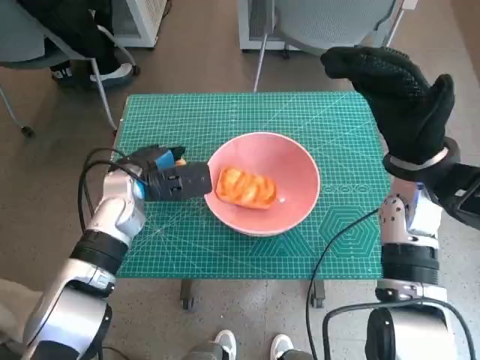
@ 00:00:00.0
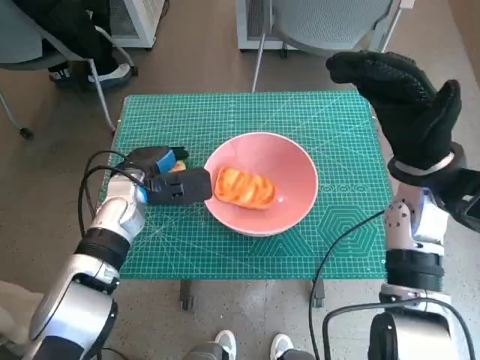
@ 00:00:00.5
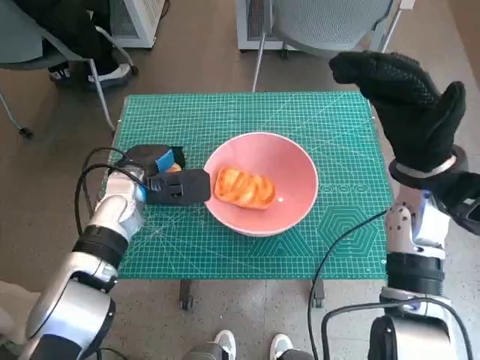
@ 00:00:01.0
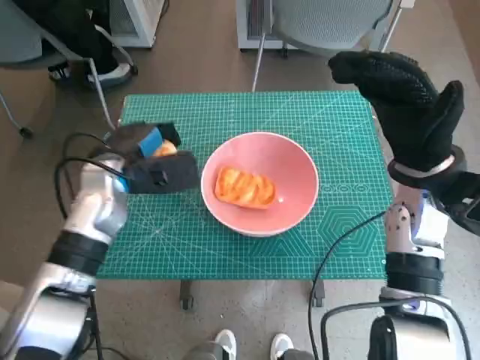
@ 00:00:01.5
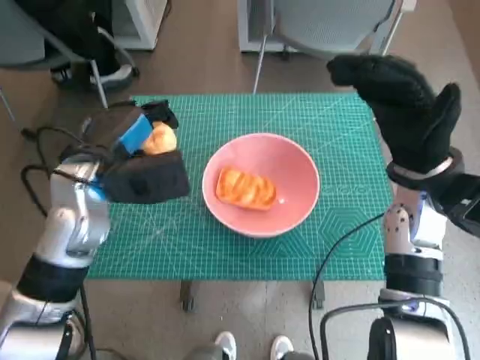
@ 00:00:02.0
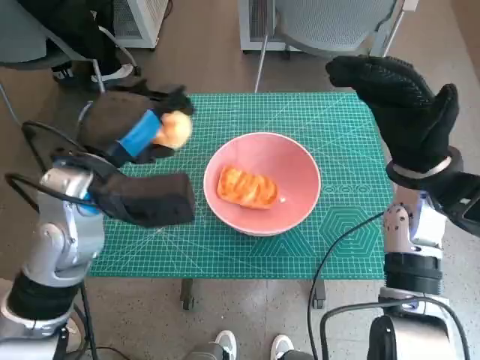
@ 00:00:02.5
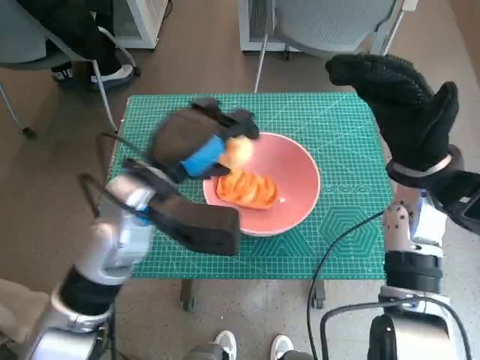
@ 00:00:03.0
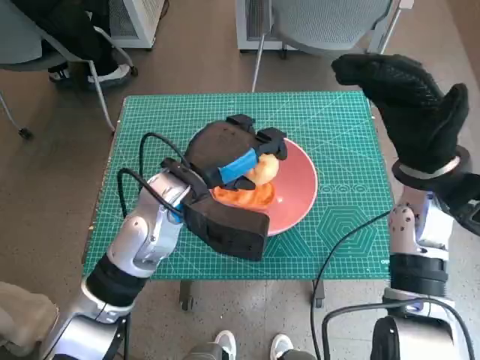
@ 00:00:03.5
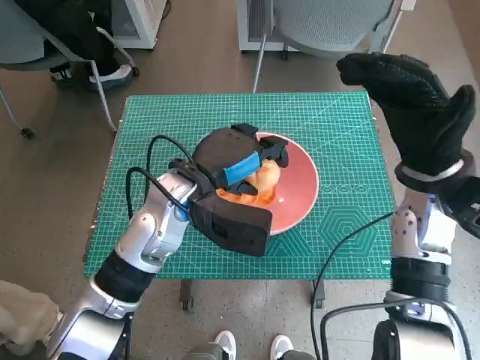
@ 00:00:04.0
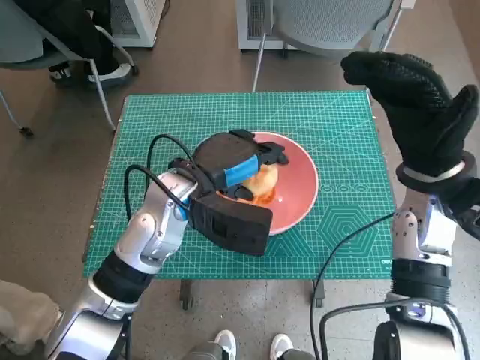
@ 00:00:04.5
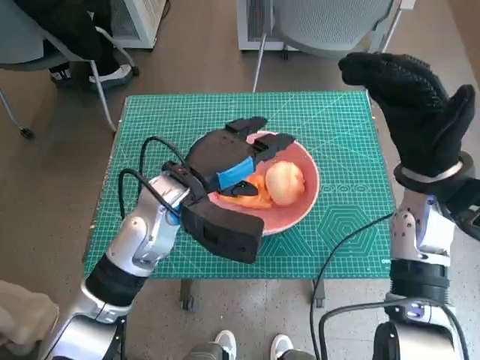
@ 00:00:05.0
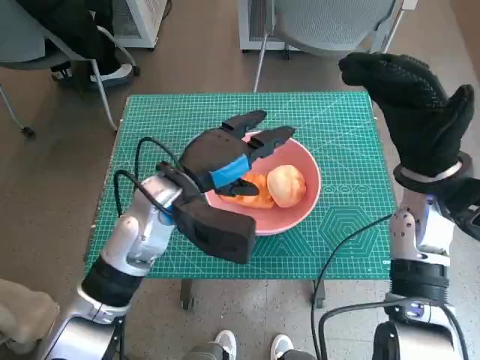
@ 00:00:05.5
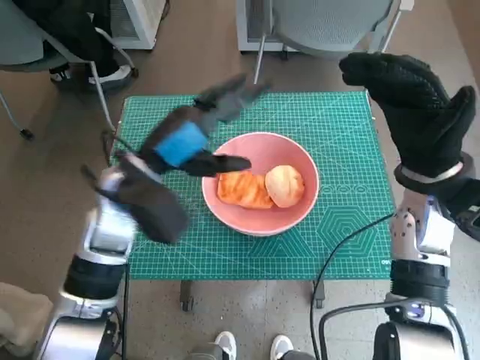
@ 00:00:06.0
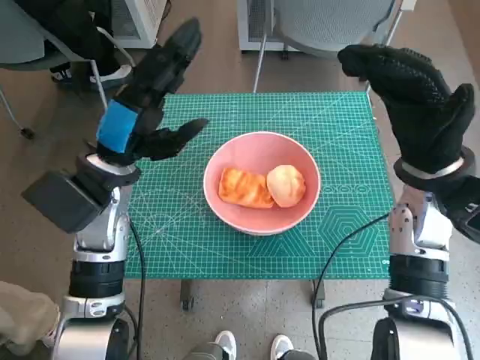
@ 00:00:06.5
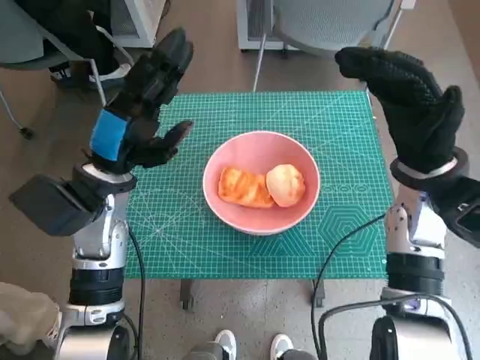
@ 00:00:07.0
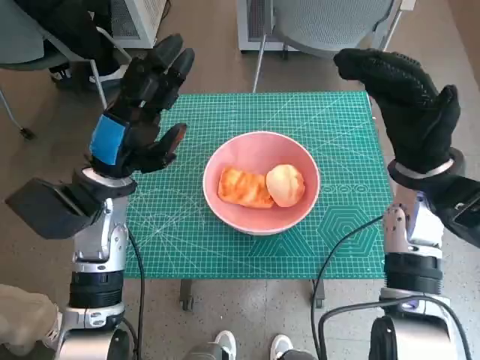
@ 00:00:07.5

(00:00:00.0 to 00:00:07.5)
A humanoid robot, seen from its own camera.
Step, 00:00:01.0 - 00:00:05.0: Place the round bread in pink bowl with left hand.
00:00:00.0 - 00:00:02.0: The left hand travels upward by about 5 cm.
00:00:02.0 - 00:00:04.0: The left hand moves to the right, approximately 10 cm.
00:00:04.0 - 00:00:05.5: The hands make only small movements.
00:00:05.5 - 00:00:07.5: The left hand shifts roughly 10 cm to the left.
